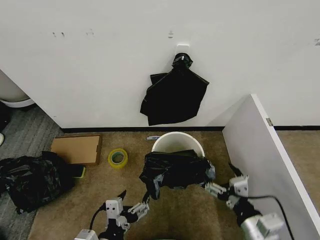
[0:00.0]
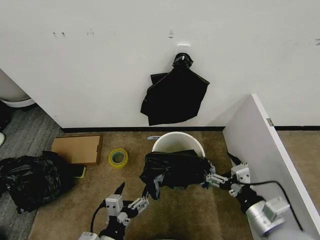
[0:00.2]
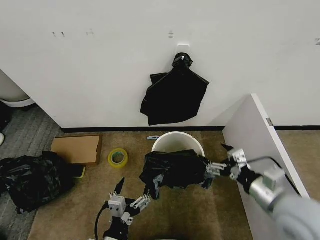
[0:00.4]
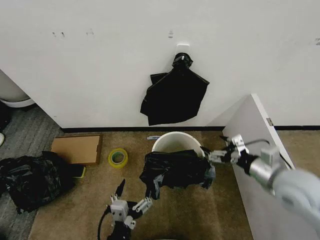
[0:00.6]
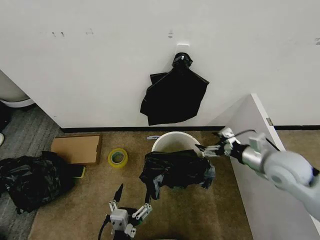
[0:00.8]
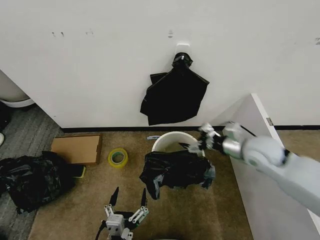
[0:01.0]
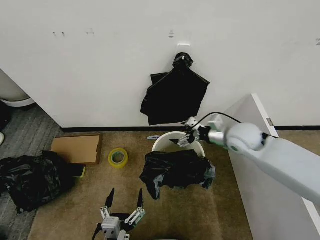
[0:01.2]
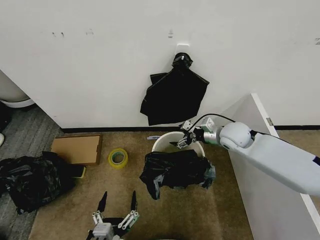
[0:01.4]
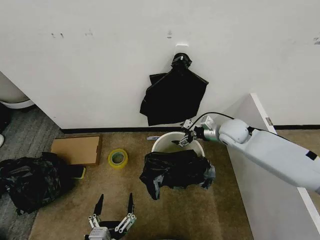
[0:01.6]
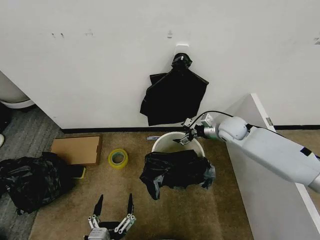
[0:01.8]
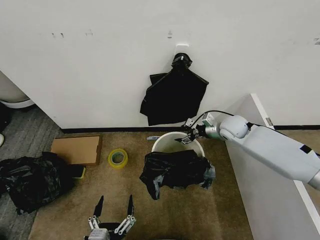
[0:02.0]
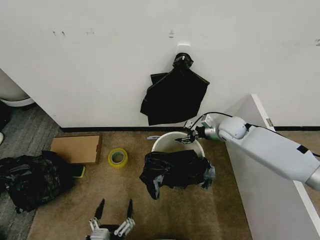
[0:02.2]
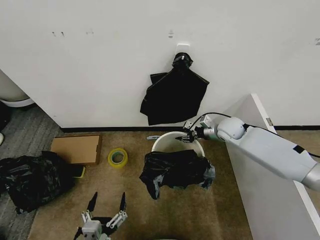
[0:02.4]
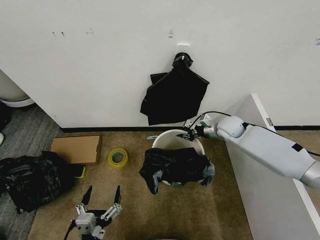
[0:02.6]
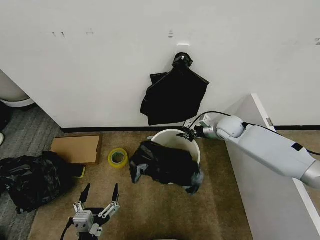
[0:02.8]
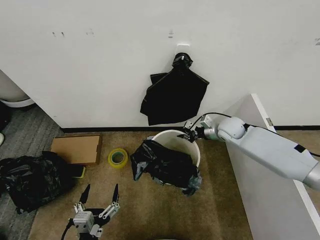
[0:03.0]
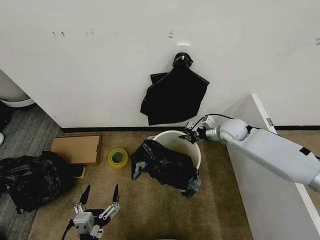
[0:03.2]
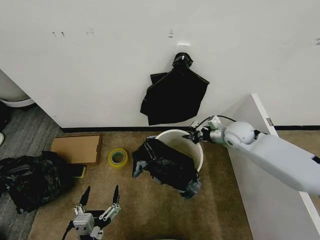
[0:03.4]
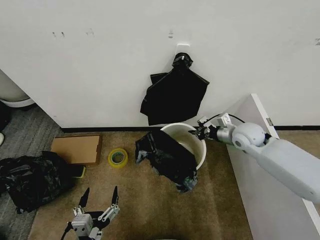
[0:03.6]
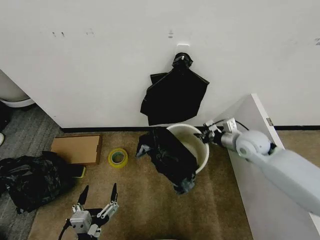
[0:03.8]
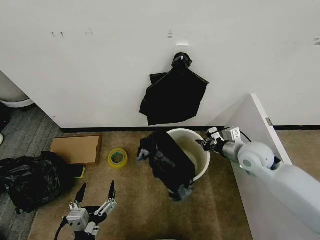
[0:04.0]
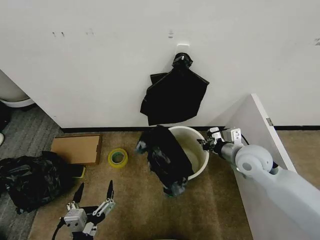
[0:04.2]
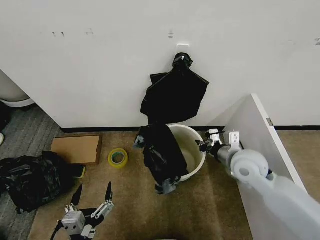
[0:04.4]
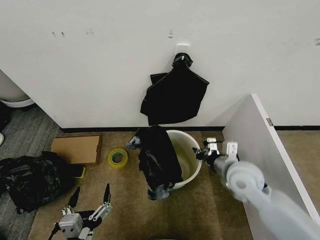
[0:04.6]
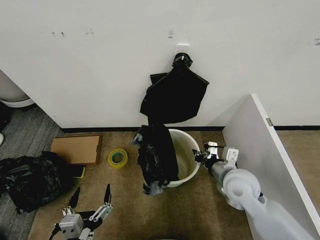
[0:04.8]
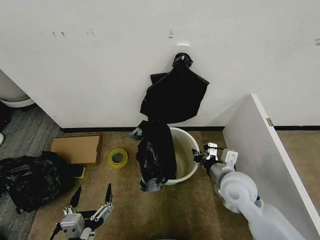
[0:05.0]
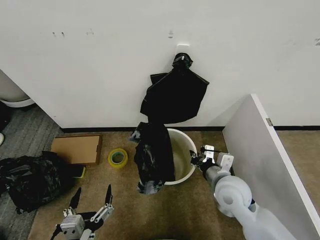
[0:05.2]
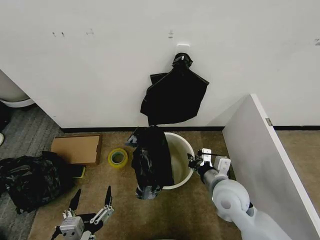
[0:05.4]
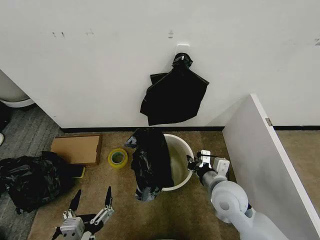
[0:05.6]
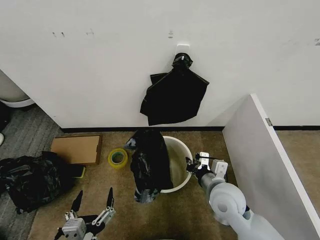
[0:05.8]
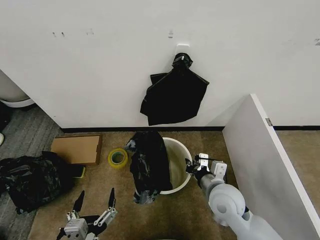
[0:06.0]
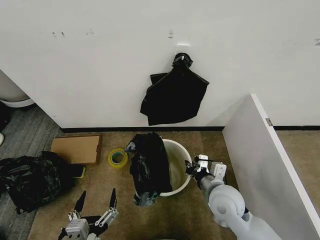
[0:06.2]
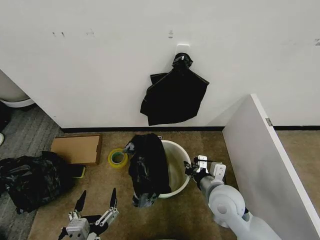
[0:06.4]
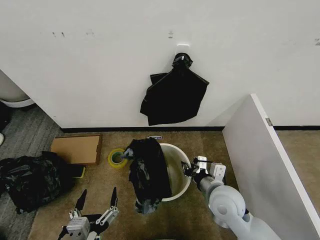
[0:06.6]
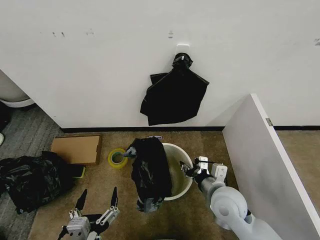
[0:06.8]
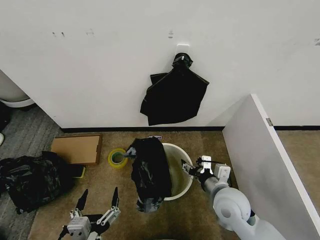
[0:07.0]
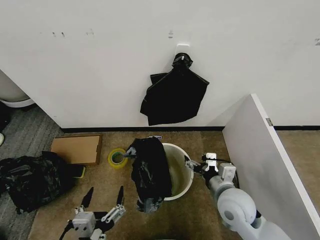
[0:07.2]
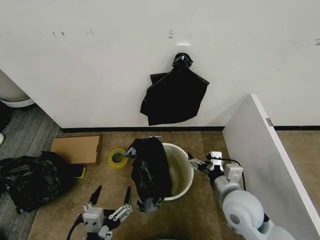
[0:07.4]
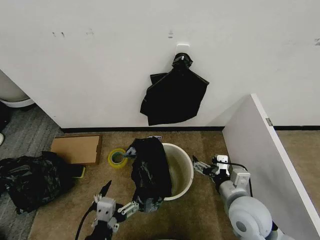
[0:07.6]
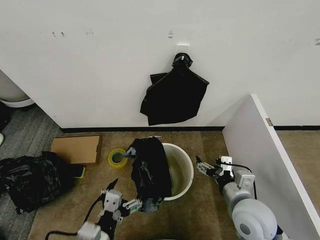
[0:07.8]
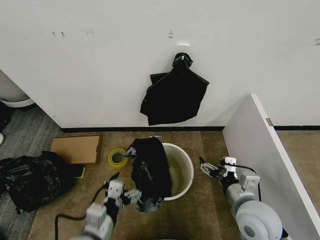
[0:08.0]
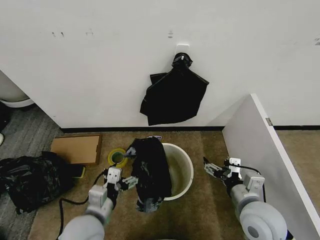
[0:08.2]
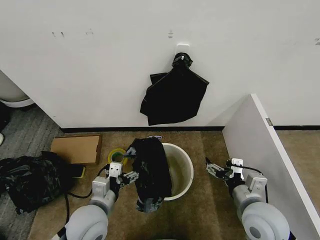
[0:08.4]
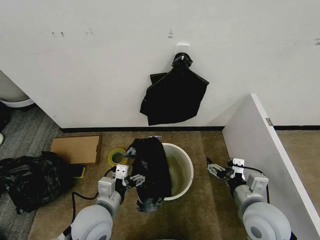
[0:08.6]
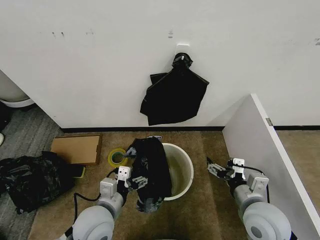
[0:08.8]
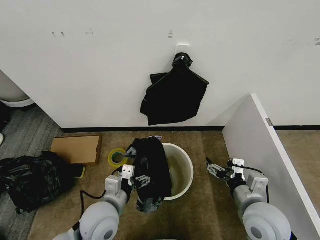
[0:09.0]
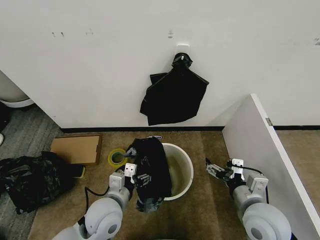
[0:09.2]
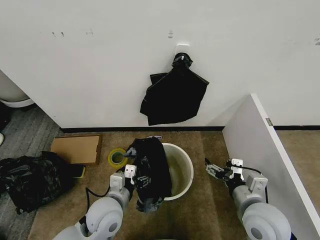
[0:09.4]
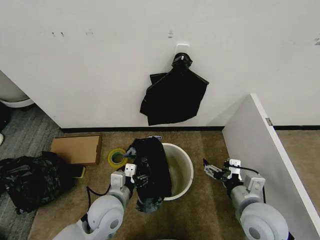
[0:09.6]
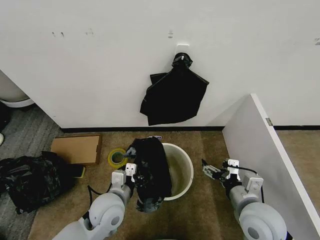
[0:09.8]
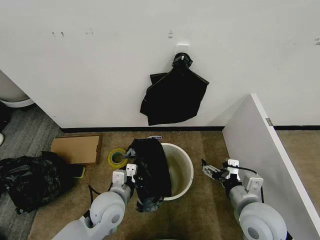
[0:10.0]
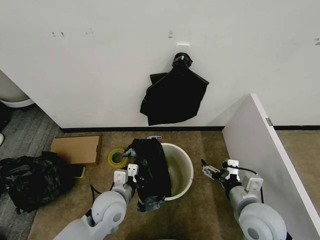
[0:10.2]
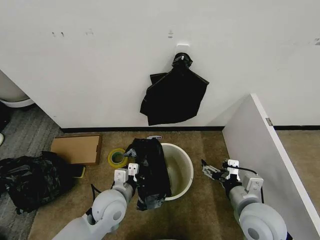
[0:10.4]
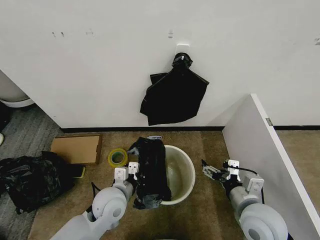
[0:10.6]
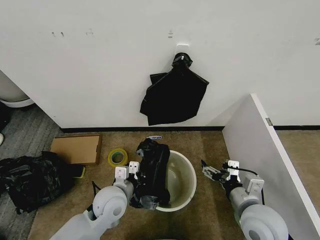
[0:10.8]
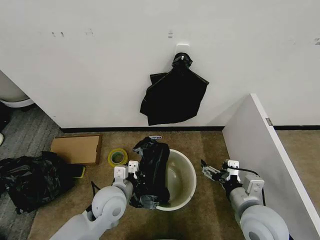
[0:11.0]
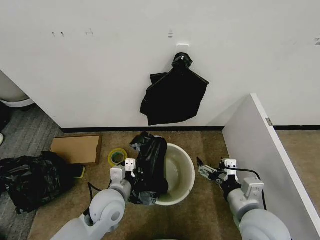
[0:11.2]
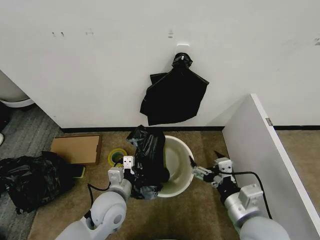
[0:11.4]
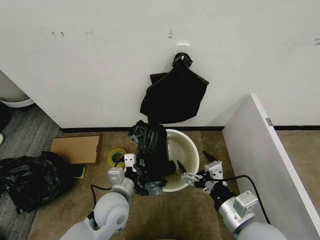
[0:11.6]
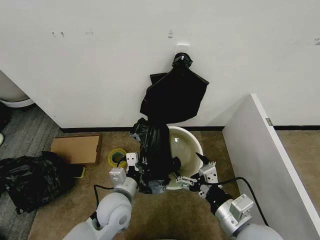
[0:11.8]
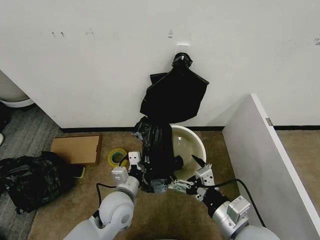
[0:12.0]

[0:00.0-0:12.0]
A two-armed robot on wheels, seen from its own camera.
Task of the whole recording: Place the garbage bag over the trash bin.
0:00.0 to 0:01.6: The left gripper is displaced downward and backward by approximately 10 cm; the right gripper moves forward, approximately 35 cm.
0:01.6 to 0:03.0: The left gripper heads to the left, covering roughly 5 cm. Meanwhile the right gripper closes.
0:03.0 to 0:04.4: The right gripper moves backward, some 20 cm.
0:04.4 to 0:06.0: The right gripper is displaced downward, to the left and backward by approximately 10 cm.
0:06.0 to 0:07.6: The right gripper shifts by approximately 5 cm, and opens up; the left gripper moves approximately 5 cm.
0:07.6 to 0:09.0: The left gripper is displaced forward by approximately 15 cm.
0:09.0 to 0:10.4: The left gripper closes its fingers.
0:10.4 to 0:12.0: The left gripper closes up. The right gripper heads backward, covering about 5 cm.

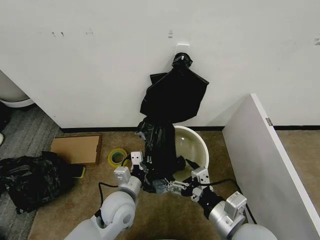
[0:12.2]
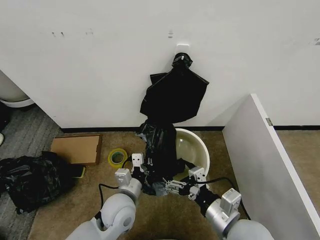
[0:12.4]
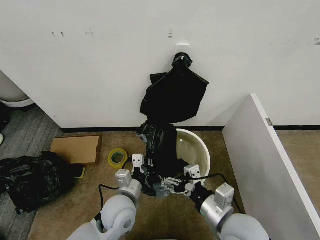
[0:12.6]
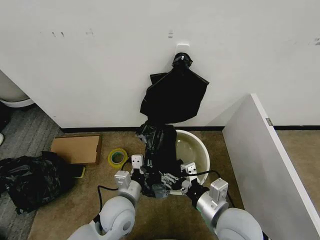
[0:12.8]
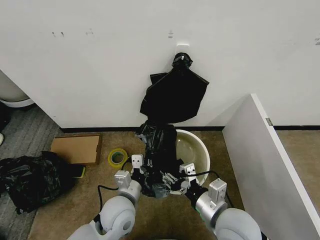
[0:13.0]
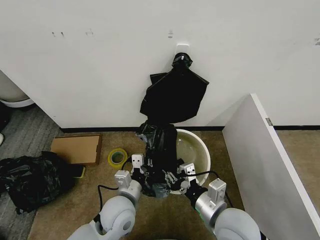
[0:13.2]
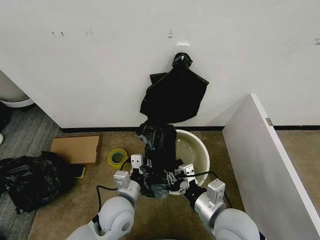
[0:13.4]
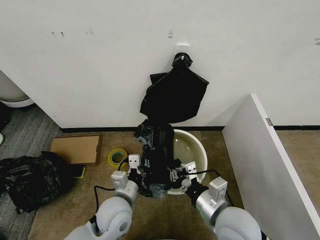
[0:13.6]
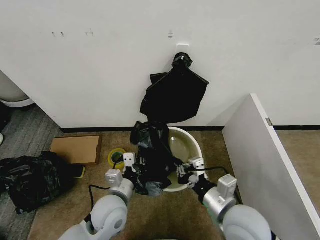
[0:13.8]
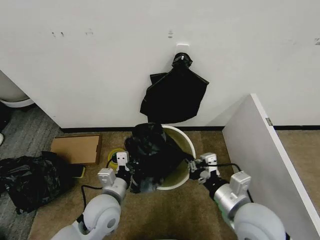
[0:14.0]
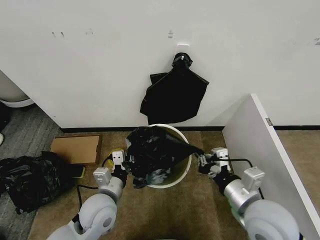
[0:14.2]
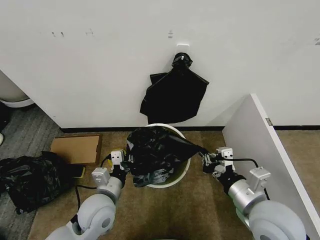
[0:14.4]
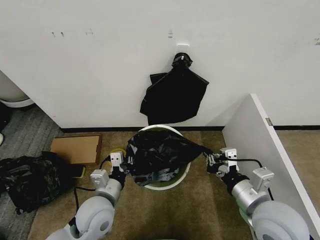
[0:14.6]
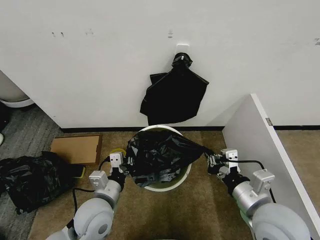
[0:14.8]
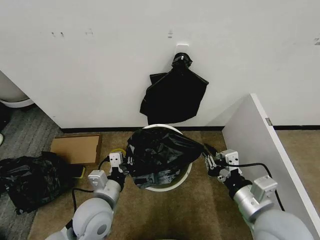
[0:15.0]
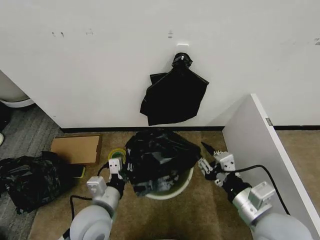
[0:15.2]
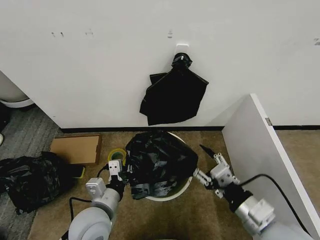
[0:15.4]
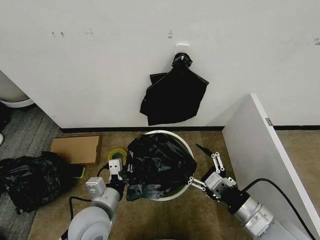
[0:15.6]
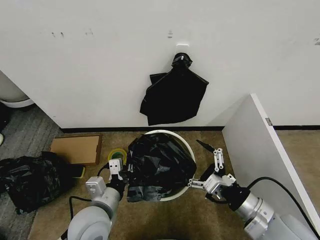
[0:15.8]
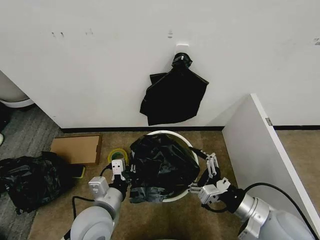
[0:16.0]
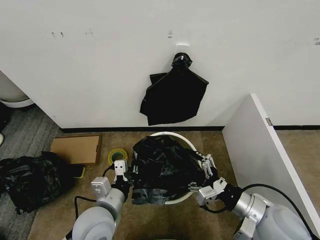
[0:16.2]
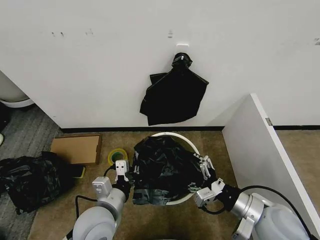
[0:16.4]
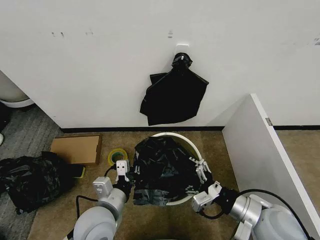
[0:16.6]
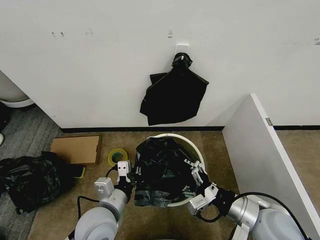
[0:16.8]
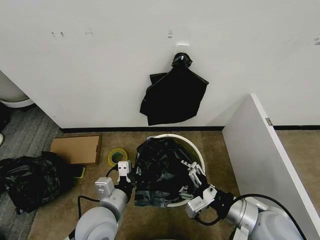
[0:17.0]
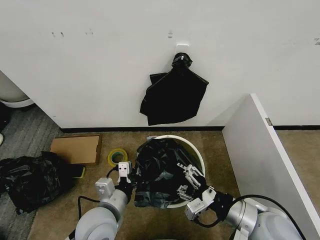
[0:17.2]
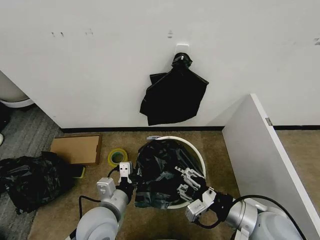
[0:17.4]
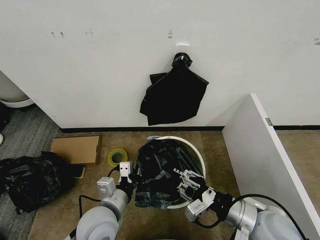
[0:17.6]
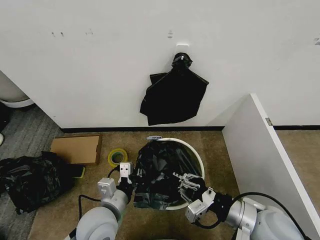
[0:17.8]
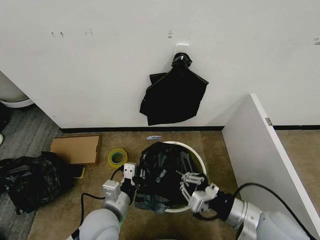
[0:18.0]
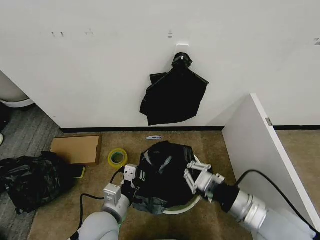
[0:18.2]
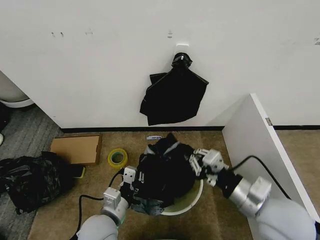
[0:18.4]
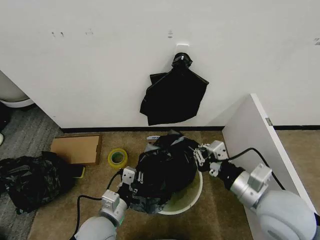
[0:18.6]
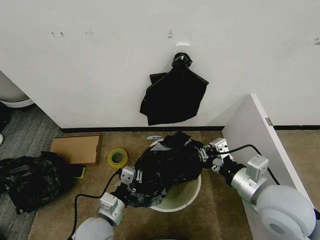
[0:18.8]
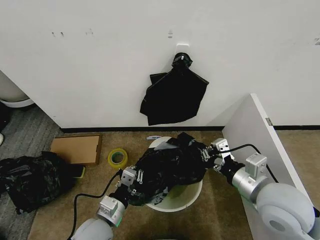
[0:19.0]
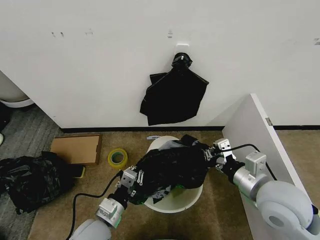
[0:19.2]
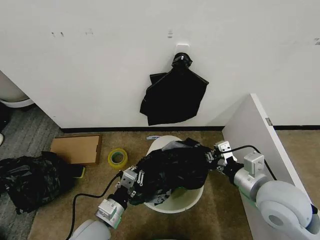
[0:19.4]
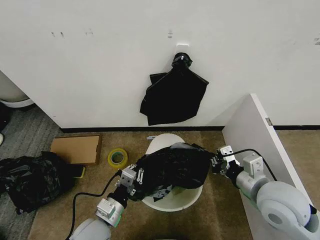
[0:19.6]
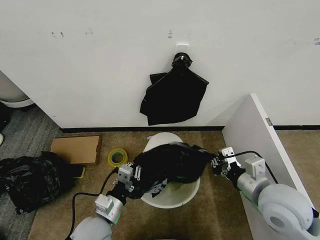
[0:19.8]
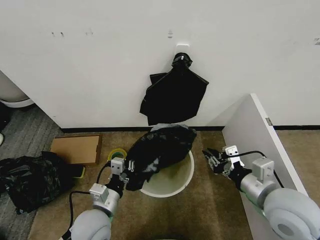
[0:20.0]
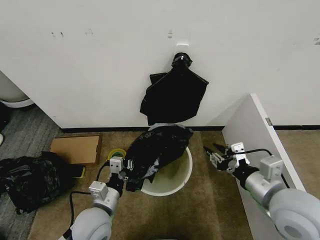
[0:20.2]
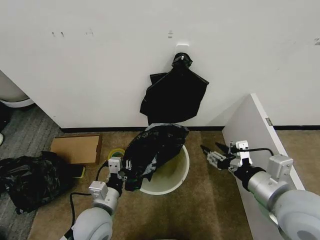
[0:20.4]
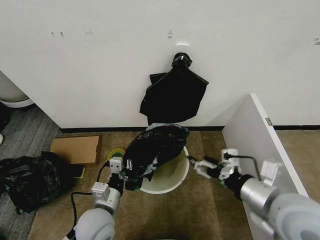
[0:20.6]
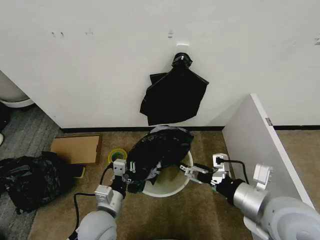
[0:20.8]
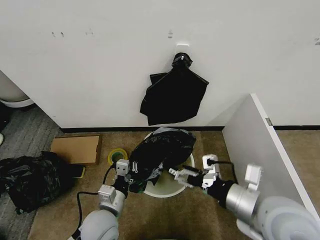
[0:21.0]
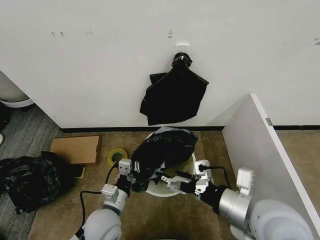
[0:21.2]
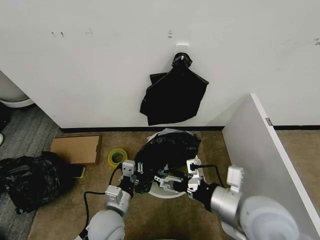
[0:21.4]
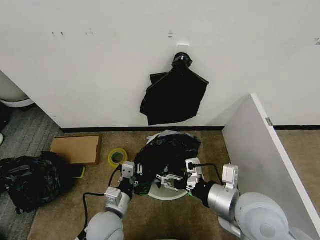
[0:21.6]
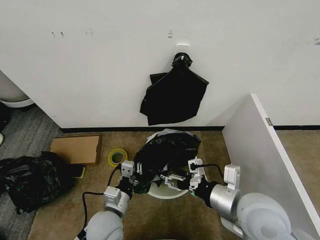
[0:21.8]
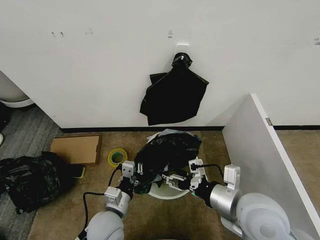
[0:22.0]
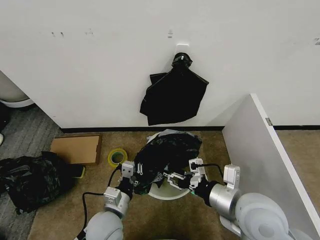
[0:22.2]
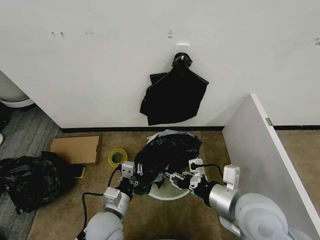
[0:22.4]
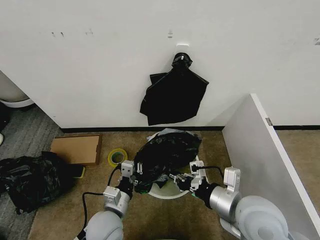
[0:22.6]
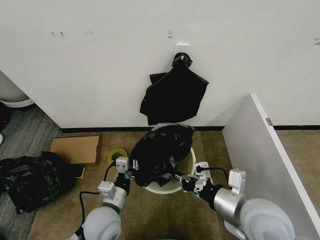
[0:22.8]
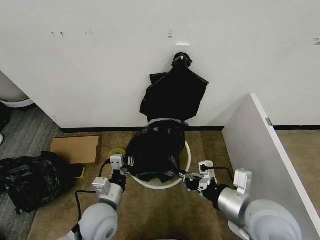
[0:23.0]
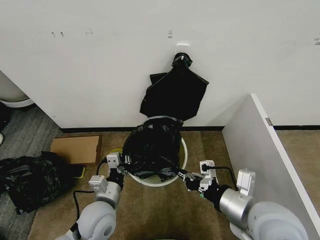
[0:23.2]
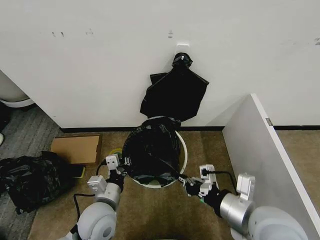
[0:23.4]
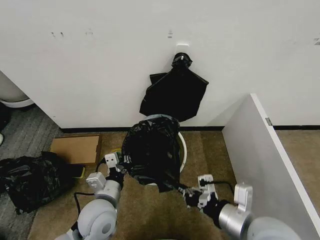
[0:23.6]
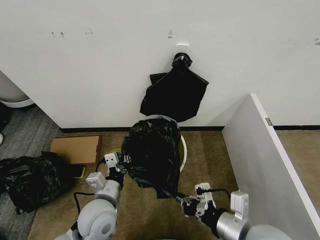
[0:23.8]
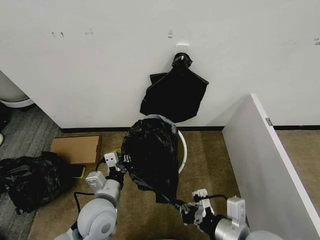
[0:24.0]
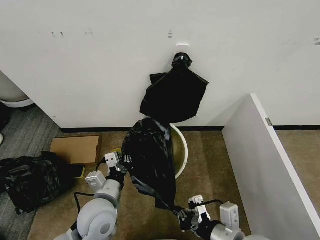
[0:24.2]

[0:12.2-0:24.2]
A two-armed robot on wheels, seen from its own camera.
Task of the whole recording: Place the garbage bag over the trash bin.
0:12.2 to 0:13.8: The right gripper closes its fingers.
0:13.8 to 0:15.2: The left gripper moves about 5 cm, while the right gripper goes about 5 cm to the right, and opens up.
0:15.2 to 0:16.6: The right gripper ends up roughly 5 cm from where it was, and opens its fingers.
0:16.6 to 0:18.2: The right gripper closes up.
0:18.2 to 0:19.8: The right gripper changes place by roughly 5 cm.
0:19.8 to 0:21.2: The right gripper is displaced to the left by about 5 cm, and opens.
0:21.2 to 0:22.6: The right gripper closes.
0:22.6 to 0:24.2: The right gripper travels backward by approximately 5 cm. The left gripper changes place by about 5 cm.
